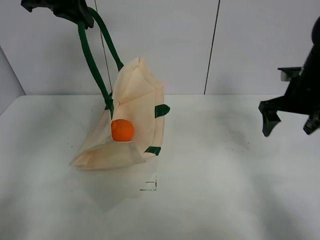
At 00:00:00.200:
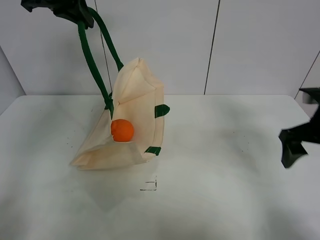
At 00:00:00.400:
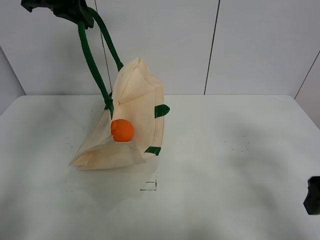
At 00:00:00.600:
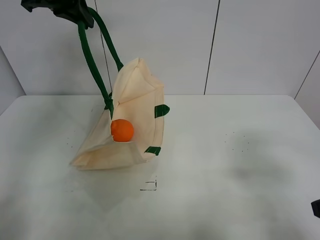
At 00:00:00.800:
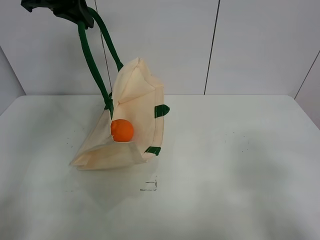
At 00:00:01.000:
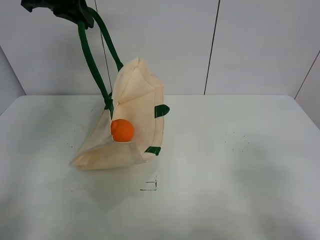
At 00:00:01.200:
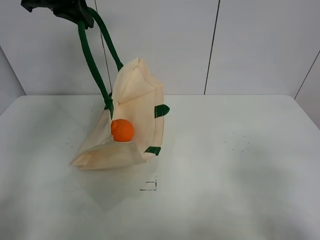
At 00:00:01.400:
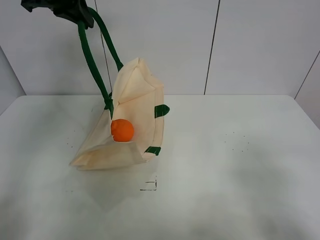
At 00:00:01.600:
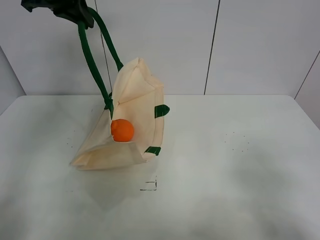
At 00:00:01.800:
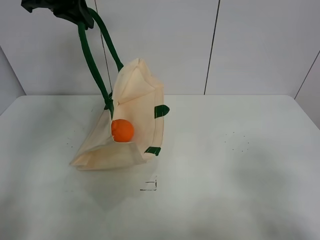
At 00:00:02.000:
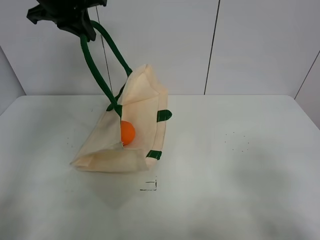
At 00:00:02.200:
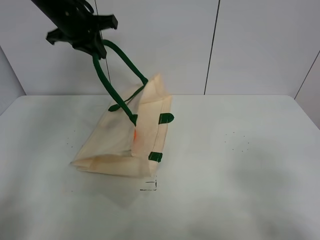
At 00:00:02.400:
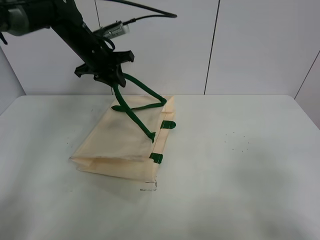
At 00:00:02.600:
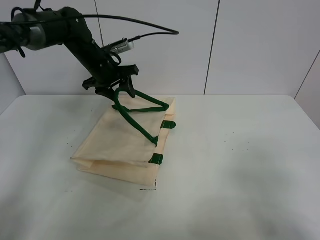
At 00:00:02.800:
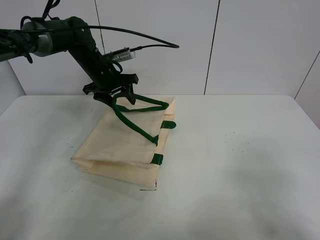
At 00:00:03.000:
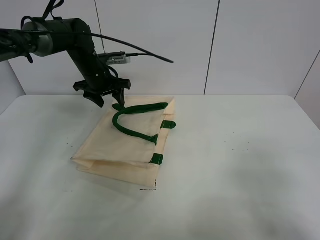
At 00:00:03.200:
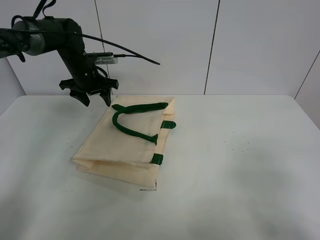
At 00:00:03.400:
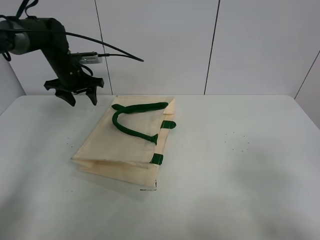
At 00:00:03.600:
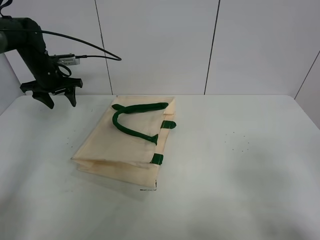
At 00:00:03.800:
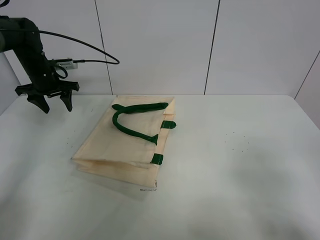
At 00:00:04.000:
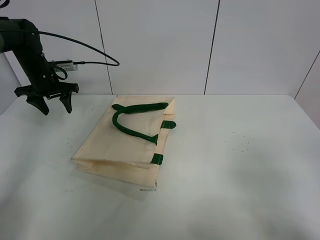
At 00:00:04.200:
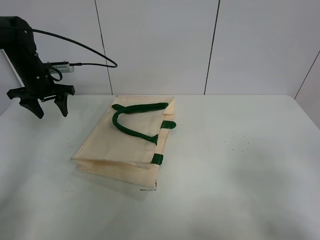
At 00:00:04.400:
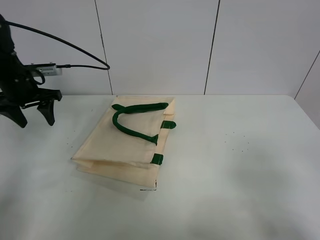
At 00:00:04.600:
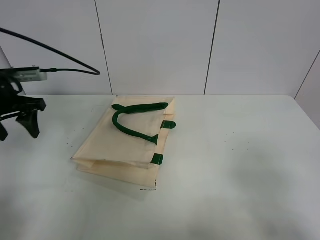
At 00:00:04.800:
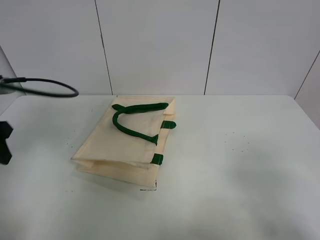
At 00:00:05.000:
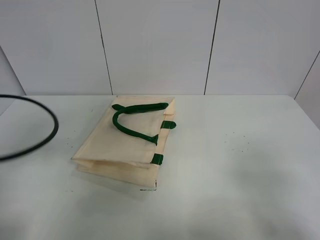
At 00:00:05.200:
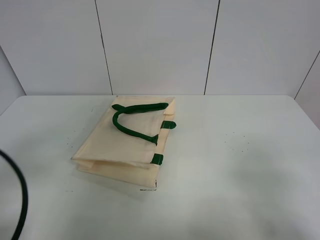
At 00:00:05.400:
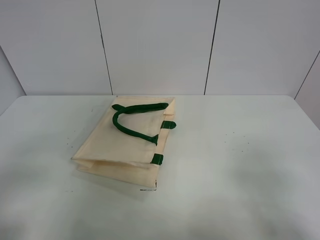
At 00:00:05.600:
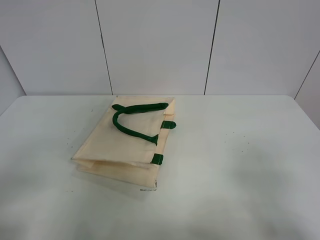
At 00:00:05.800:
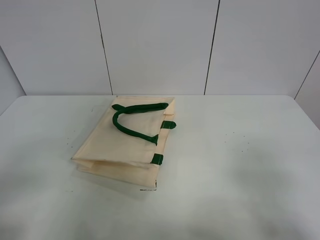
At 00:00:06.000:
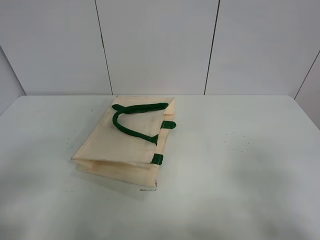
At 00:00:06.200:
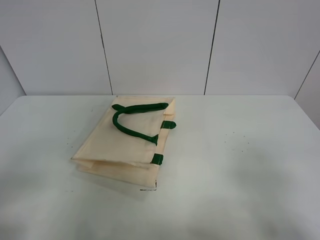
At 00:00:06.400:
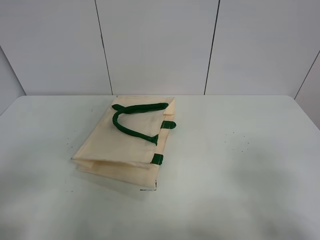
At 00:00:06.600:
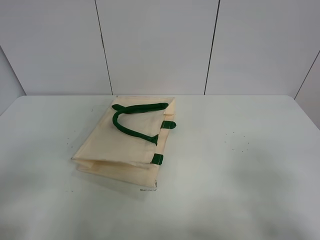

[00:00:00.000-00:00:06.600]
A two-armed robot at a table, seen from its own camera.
Task of the whole recording: open the white linen bag and put the orange in the bag.
Step, 00:00:00.000 to 00:00:03.600: Put down the handbag with left gripper.
00:00:00.000 to 00:00:01.600: The right gripper shifts approximately 30 cm backward.
00:00:01.600 to 00:00:03.200: The left gripper moves downward, approximately 20 cm, and opens its fingers.
00:00:03.200 to 00:00:05.000: The left gripper heads backward, covering about 35 cm.
00:00:05.000 to 00:00:06.600: The left gripper is displaced backward by roughly 10 cm.
